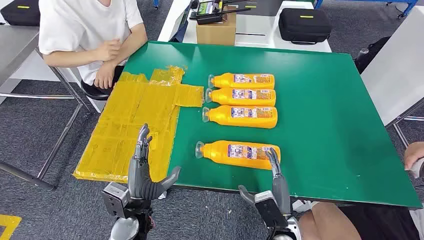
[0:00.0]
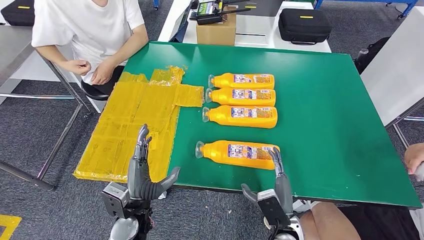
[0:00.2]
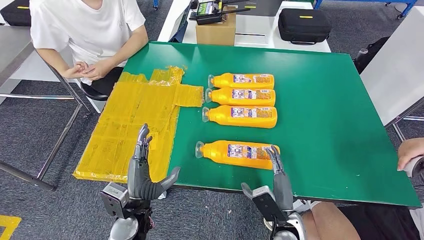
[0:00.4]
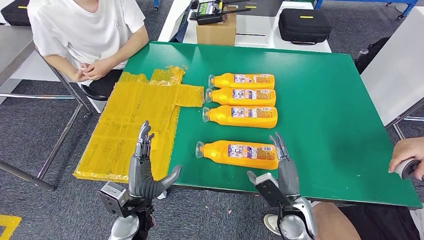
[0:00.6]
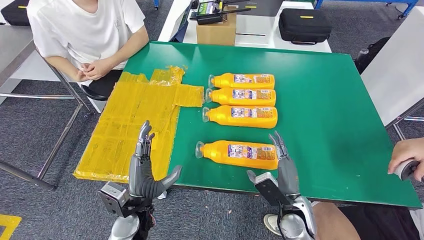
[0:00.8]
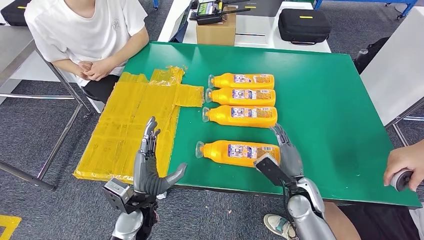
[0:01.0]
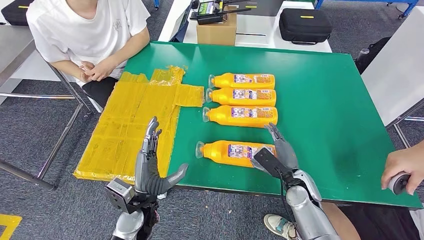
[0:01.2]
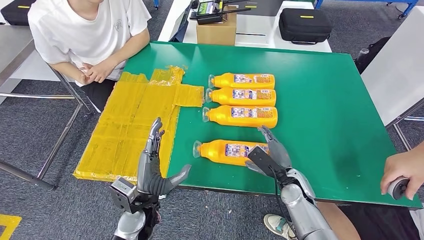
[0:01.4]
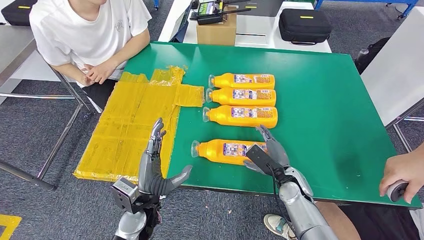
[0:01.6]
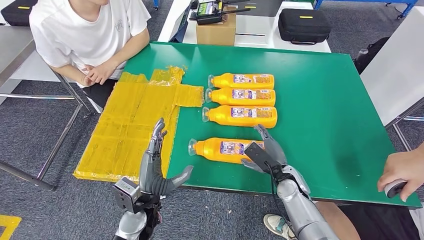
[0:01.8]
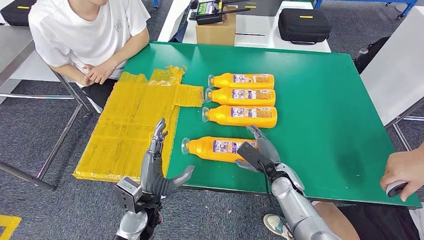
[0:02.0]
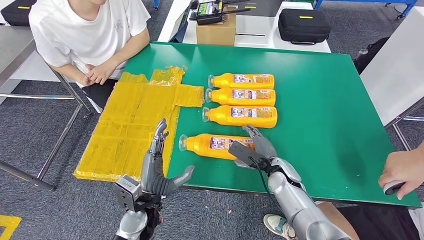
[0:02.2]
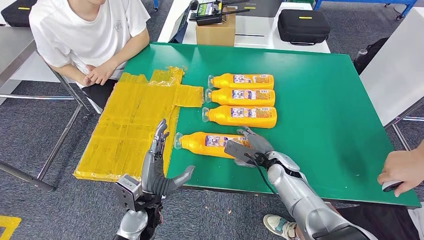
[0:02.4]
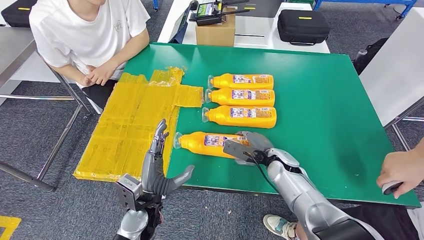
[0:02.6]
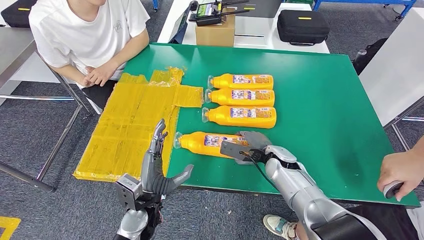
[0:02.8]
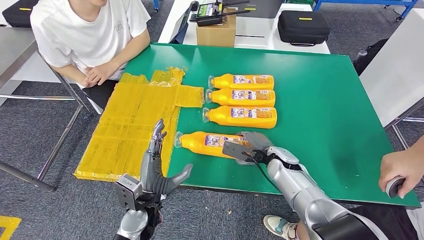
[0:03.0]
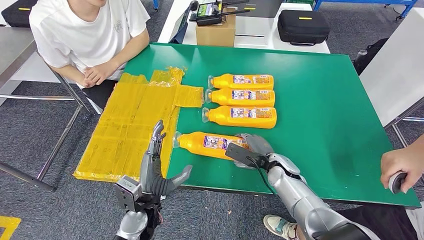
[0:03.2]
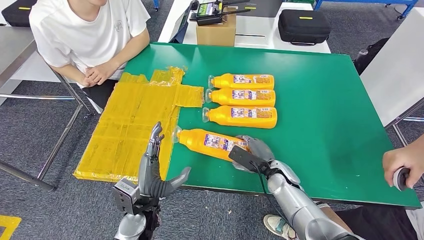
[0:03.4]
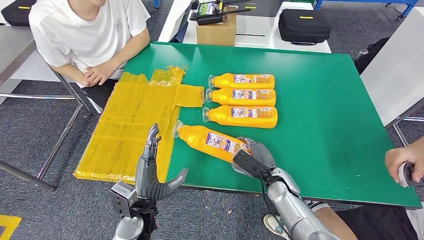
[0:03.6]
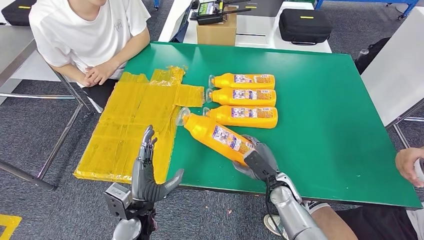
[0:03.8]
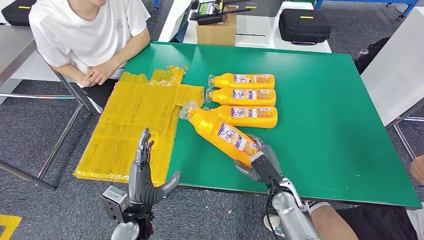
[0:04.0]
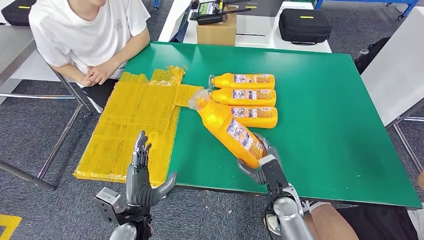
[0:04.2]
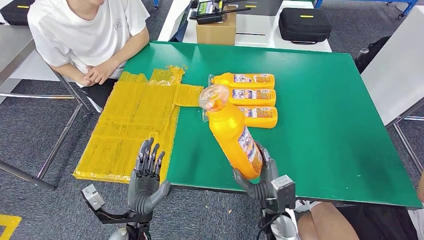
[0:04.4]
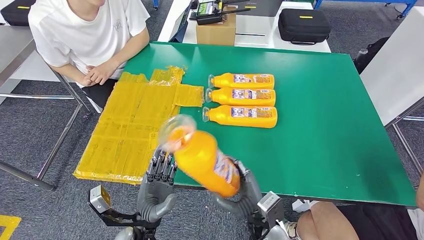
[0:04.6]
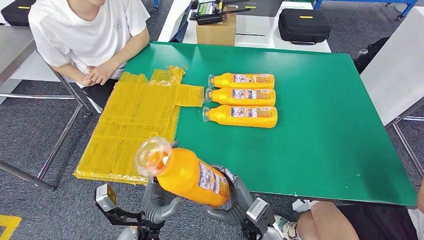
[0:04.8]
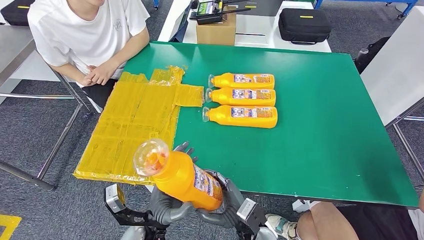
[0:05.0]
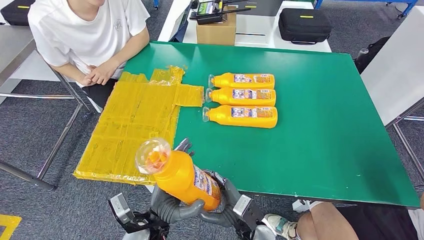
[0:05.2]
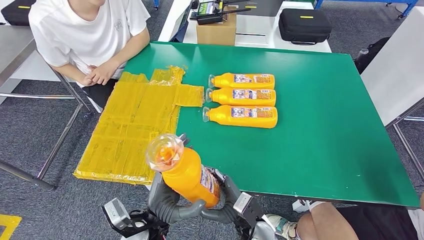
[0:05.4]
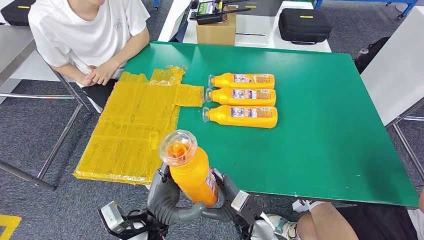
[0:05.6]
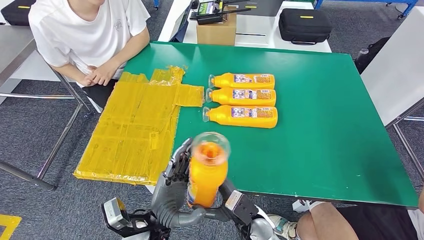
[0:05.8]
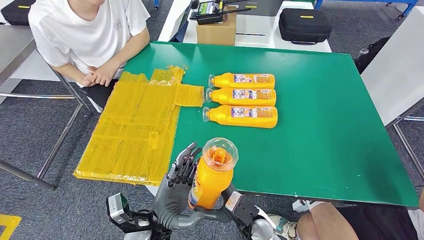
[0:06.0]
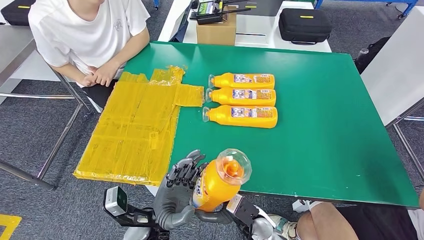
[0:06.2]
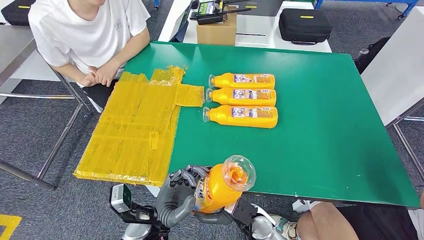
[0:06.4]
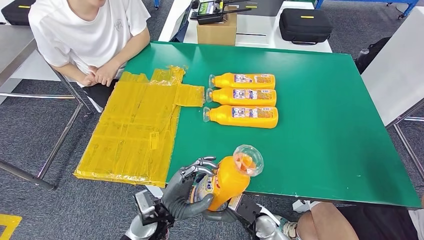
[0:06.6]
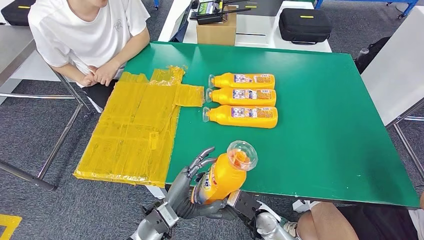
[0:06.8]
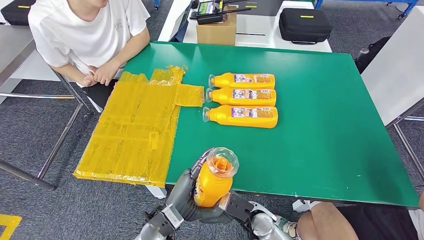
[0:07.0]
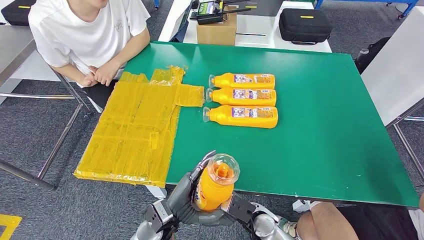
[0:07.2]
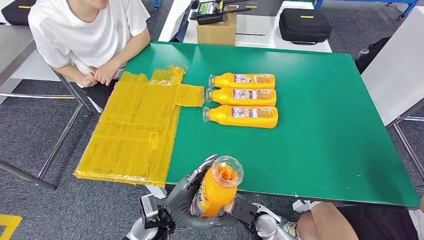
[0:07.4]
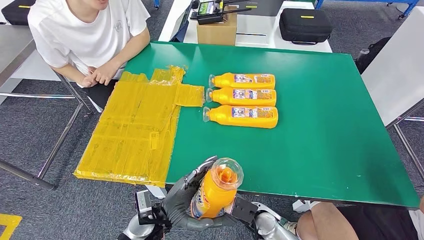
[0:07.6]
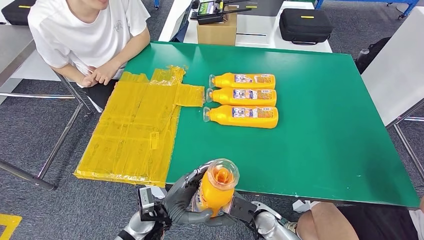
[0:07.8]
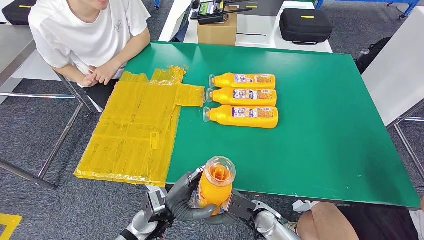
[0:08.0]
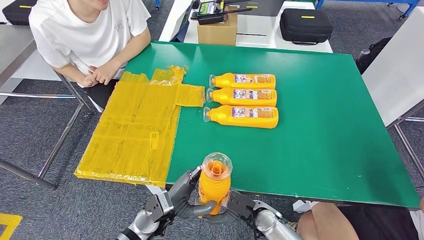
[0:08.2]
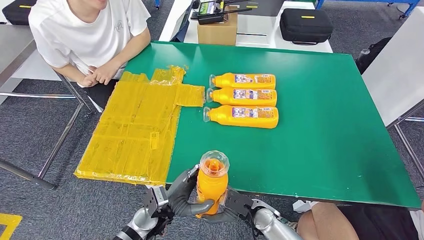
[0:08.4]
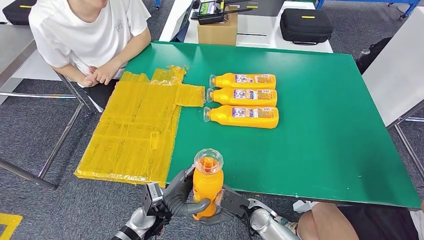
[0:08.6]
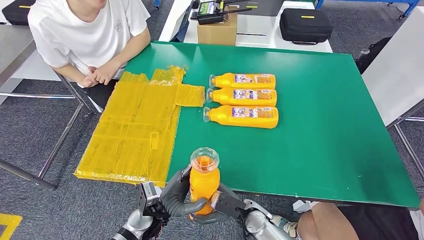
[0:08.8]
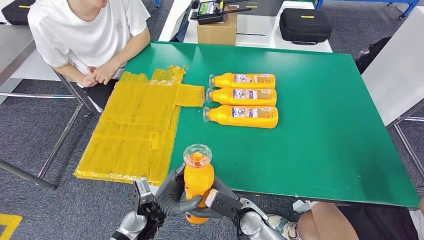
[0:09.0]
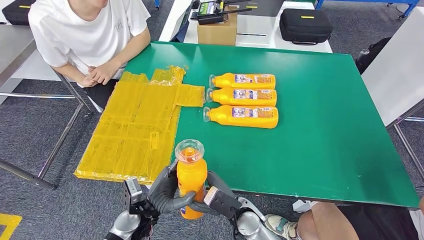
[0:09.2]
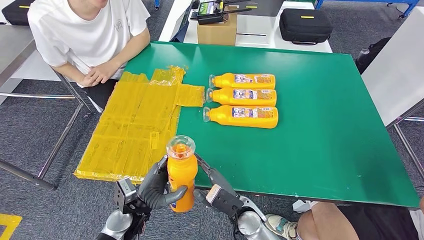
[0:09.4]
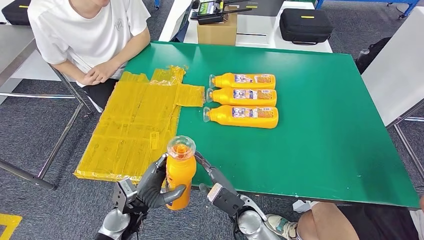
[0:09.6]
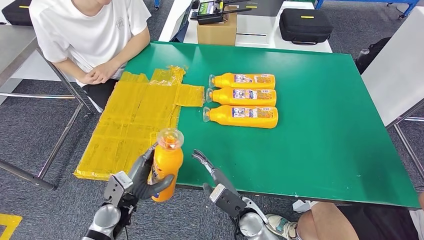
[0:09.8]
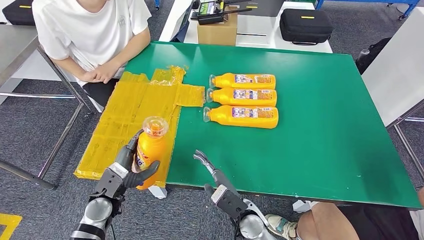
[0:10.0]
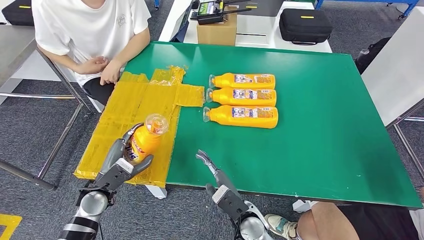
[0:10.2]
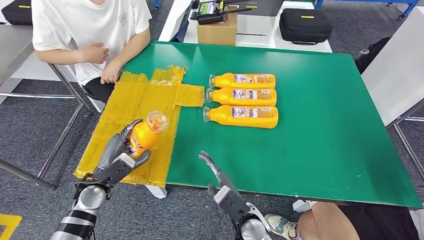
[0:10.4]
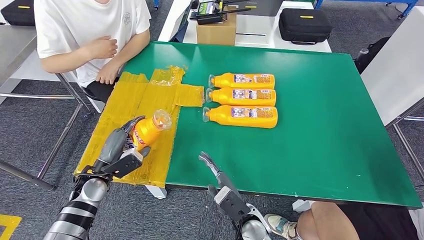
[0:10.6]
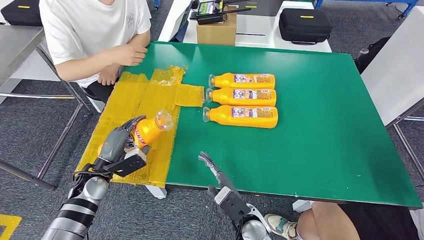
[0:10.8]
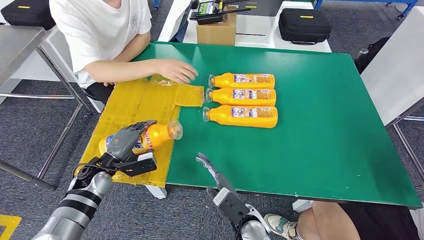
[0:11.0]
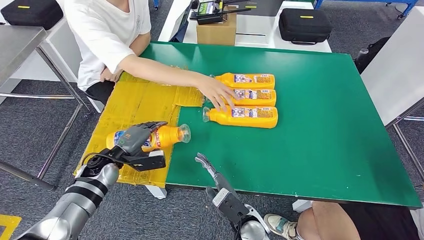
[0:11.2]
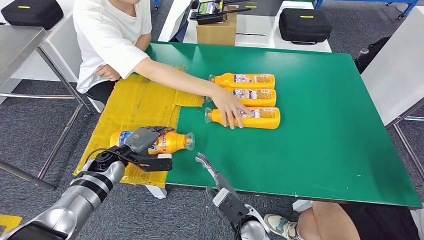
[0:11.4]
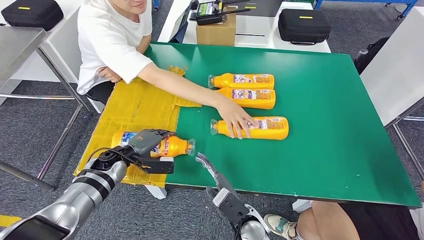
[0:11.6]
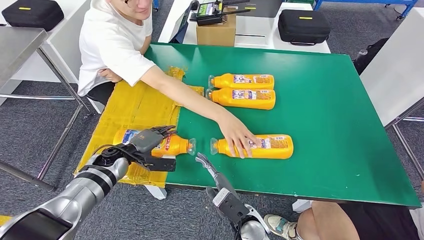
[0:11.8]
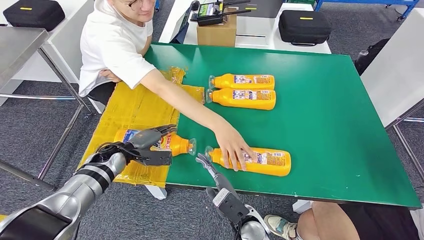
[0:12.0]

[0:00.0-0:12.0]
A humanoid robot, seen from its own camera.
Step, 0:00.0 to 0:04.8: Take the fast-moving consumer goods bottle from the table.
0:01.6 to 0:03.0: The right hand shifts some 5 cm forward.
0:04.4 to 0:06.0: The right hand ends up some 5 cm from where it was. The left hand heads to the right, covering about 5 cm.
0:07.6 to 0:09.0: The hands stay close to where they were, moving slightly.
0:09.0 to 0:10.4: The left hand goes some 15 cm to the left and forward.

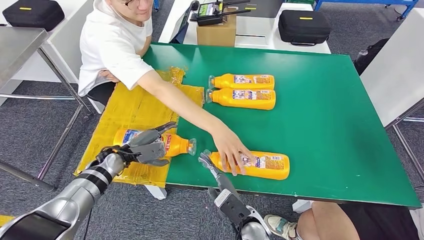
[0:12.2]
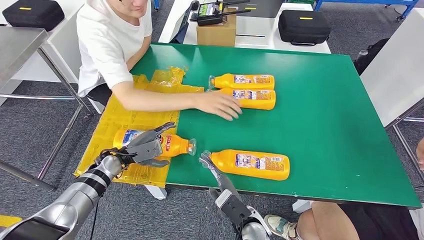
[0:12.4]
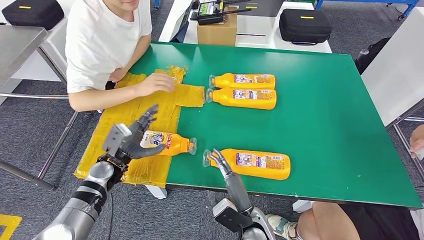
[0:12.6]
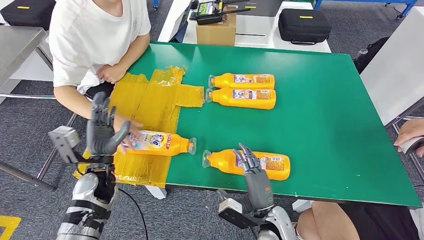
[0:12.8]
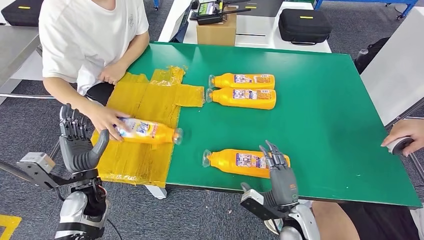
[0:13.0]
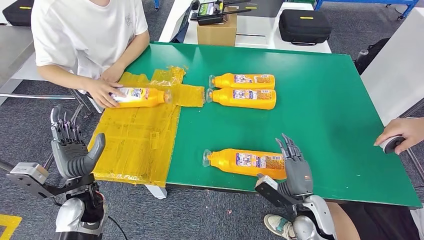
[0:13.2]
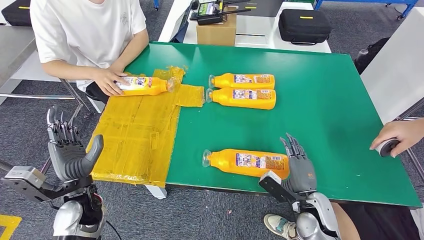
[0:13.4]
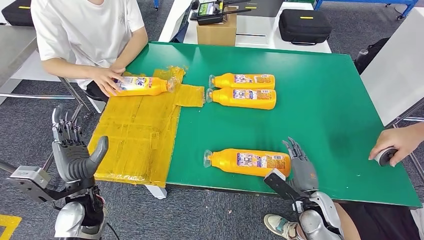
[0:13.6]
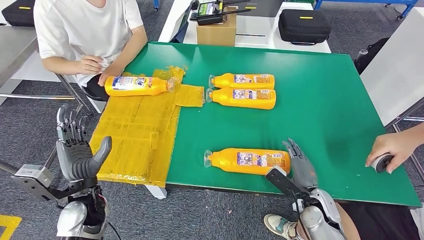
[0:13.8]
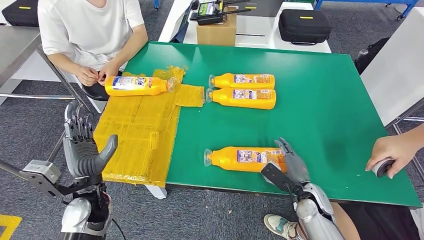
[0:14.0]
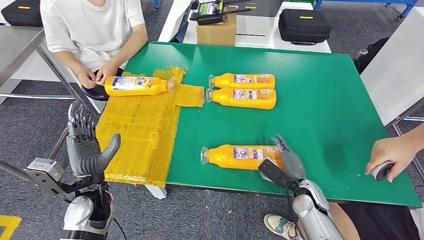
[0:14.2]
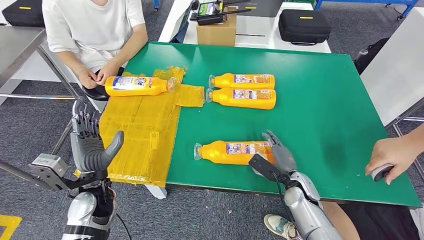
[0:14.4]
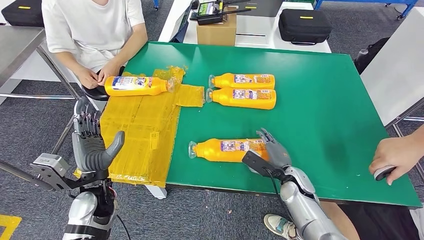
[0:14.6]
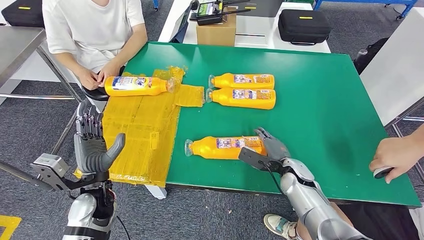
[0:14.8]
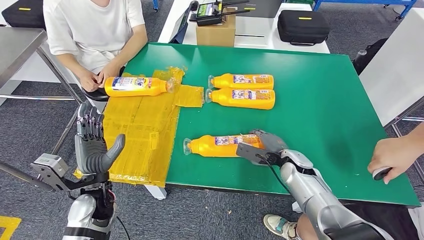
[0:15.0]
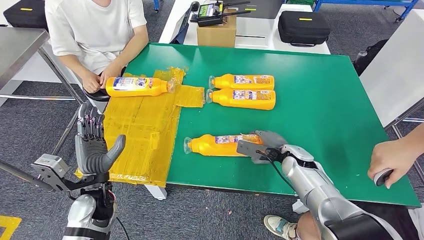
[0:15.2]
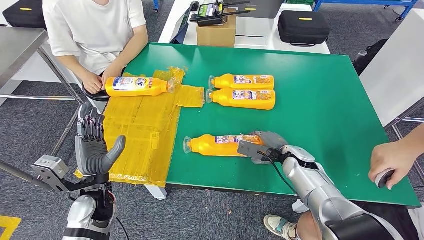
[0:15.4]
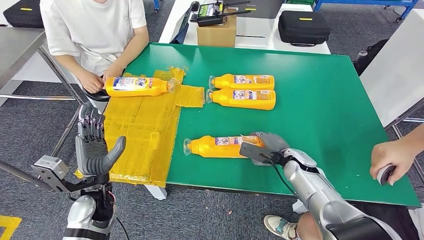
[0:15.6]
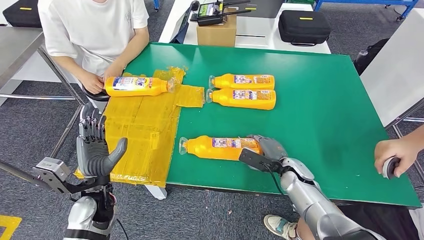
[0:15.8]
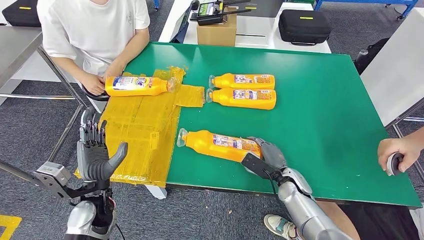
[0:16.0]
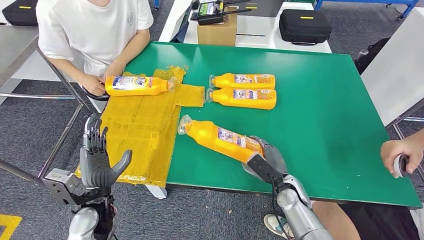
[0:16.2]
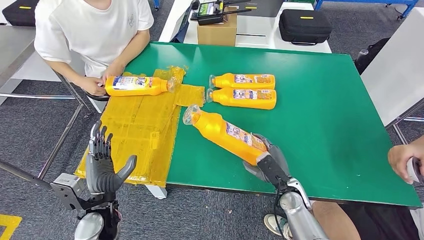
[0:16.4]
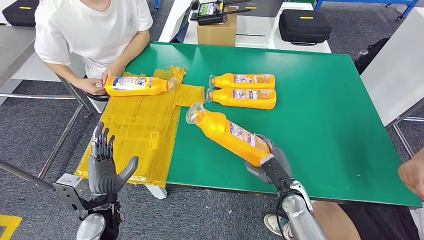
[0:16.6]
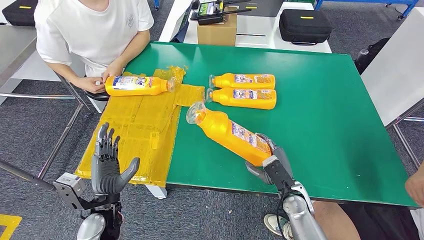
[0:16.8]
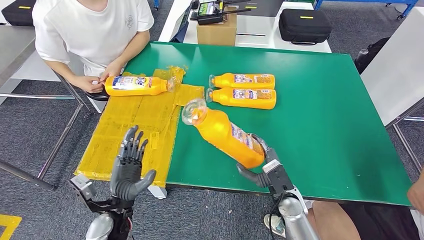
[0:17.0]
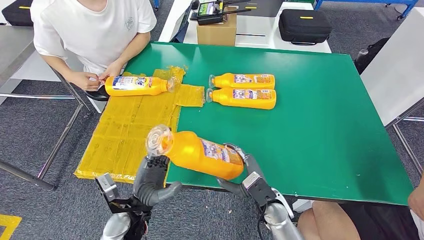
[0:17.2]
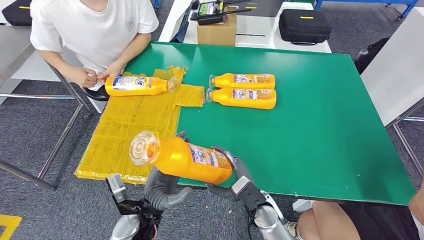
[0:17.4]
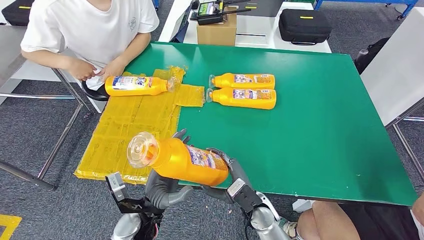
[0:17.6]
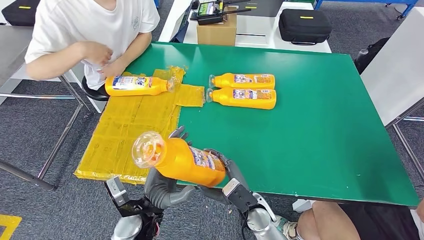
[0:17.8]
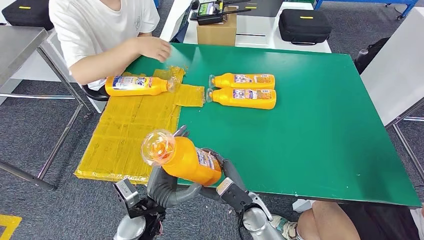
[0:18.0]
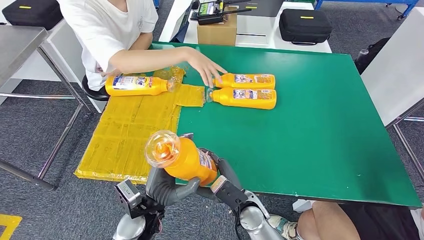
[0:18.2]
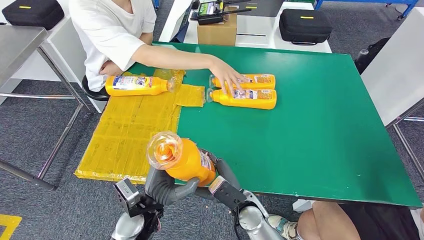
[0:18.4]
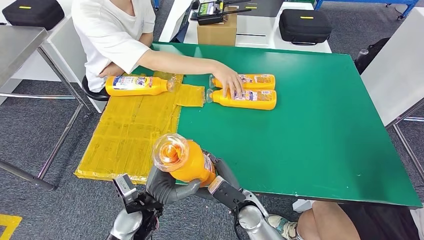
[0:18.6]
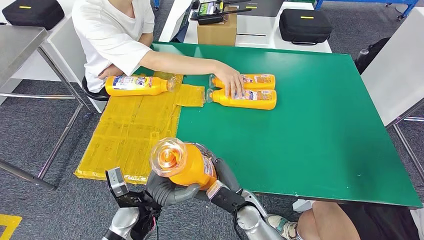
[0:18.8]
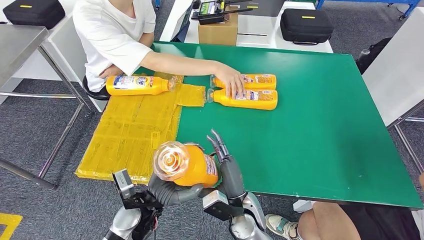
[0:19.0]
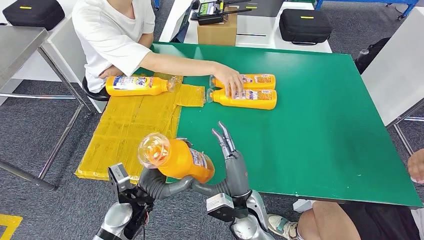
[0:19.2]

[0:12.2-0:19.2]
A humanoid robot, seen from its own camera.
Step, 0:14.0 to 0:16.8: Pick up the fast-moving consumer goods bottle from the table.
0:17.8 to 0:19.2: The right hand shifts by approximately 5 cm.
